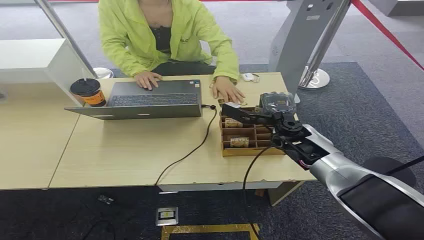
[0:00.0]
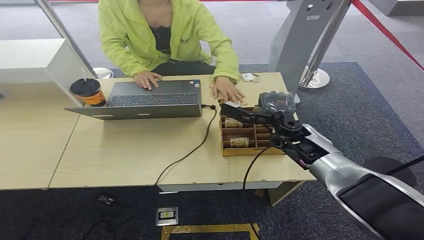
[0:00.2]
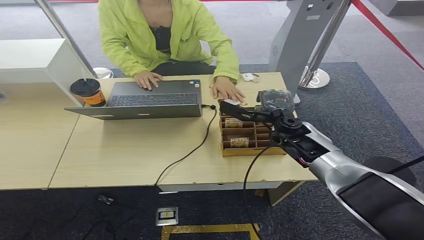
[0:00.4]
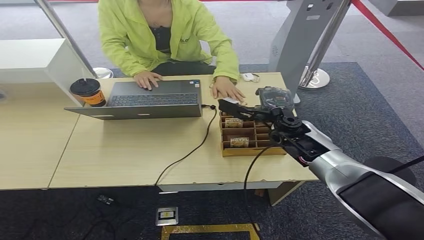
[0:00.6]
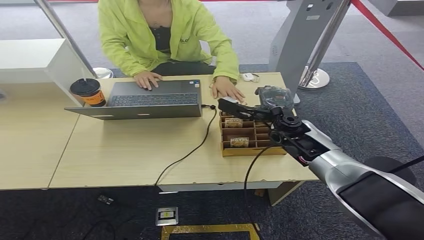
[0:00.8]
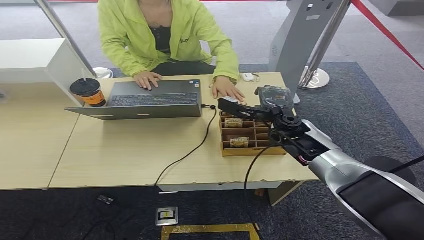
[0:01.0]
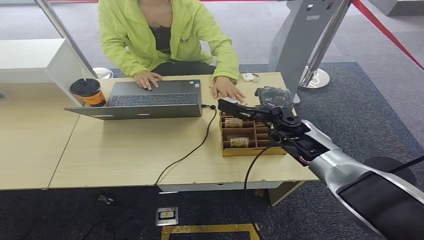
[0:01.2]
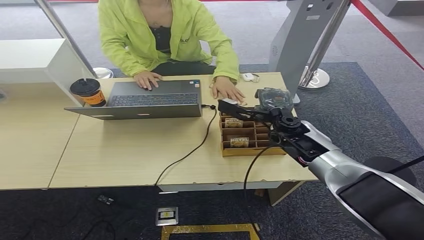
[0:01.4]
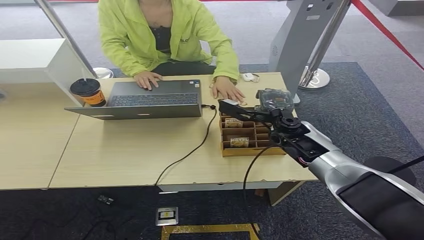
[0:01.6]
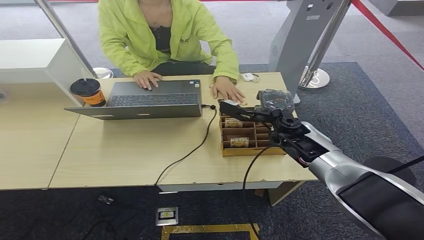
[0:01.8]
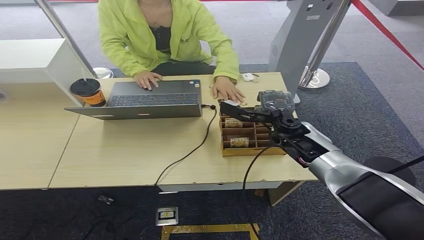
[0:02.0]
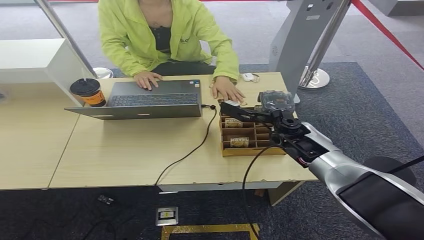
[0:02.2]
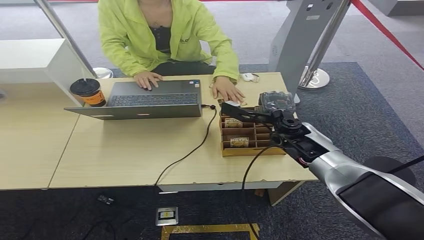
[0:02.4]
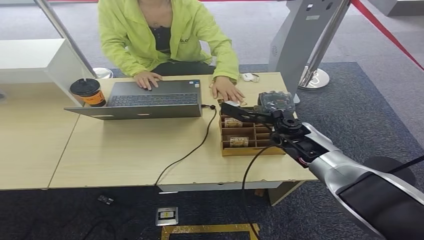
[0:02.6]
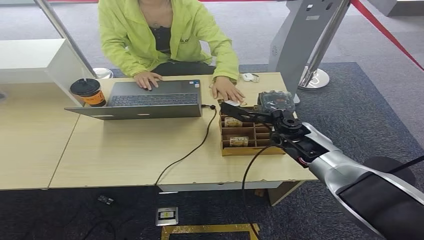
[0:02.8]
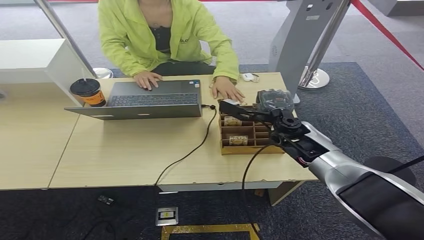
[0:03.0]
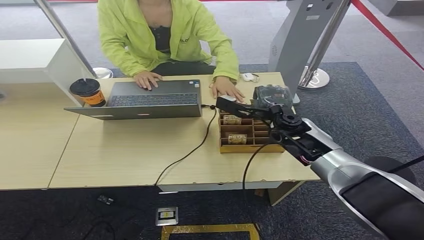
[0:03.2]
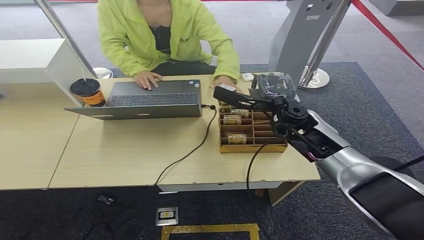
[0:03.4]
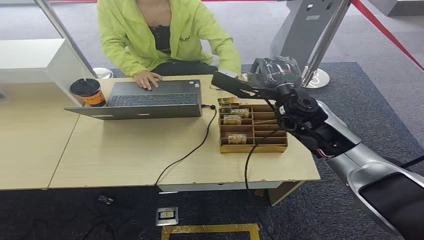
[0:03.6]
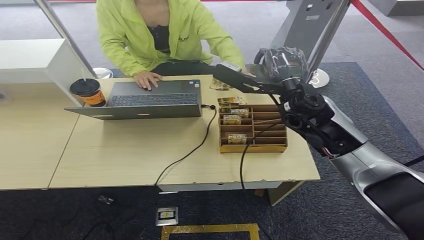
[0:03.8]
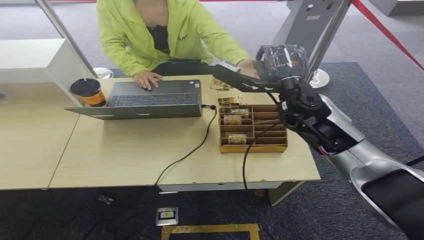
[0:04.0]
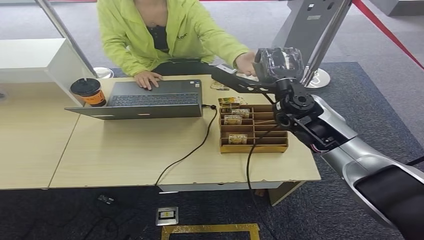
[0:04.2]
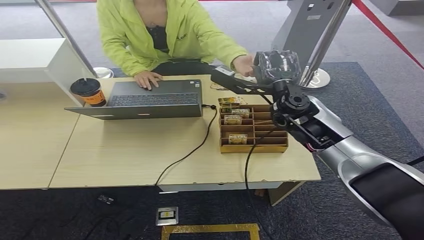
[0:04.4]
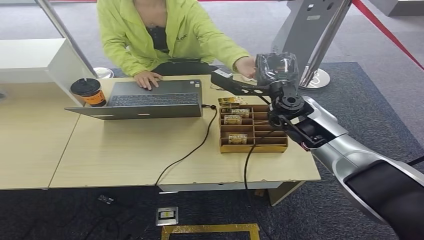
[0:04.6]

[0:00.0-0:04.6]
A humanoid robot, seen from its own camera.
Step, 0:00.0 to 0:03.4: Pick up the key card from the card box.
Step, 0:03.6 to 0:04.6: Hand the key card to the target.
0:01.6 to 0:03.0: The two hands keep their place.
0:03.0 to 0:04.6: The right hand goes approximately 10 cm upward.
